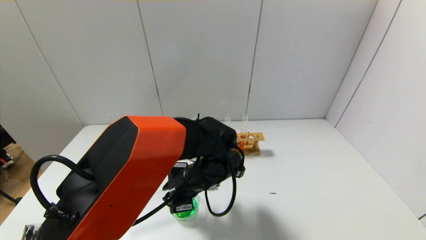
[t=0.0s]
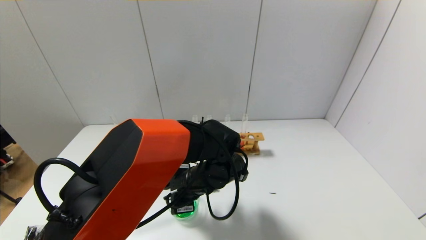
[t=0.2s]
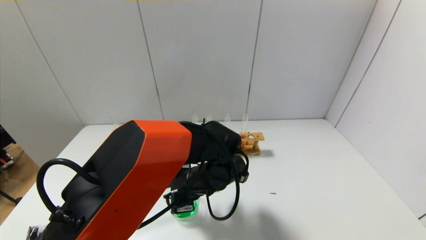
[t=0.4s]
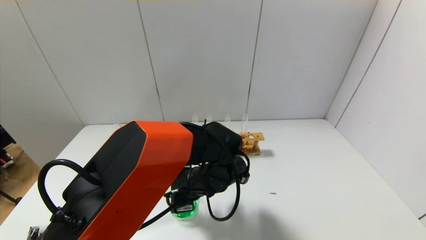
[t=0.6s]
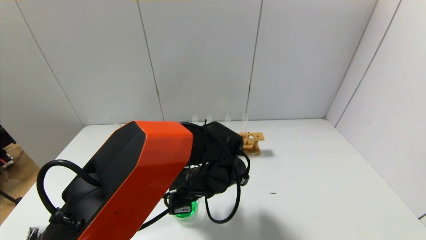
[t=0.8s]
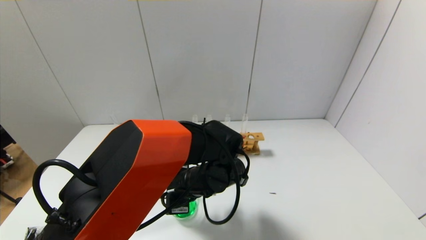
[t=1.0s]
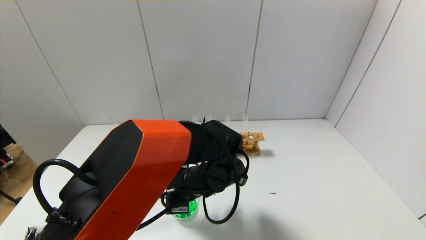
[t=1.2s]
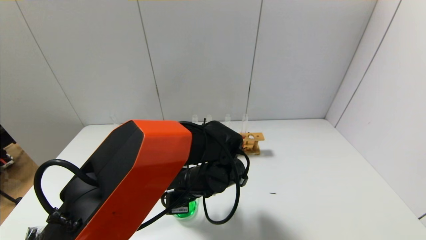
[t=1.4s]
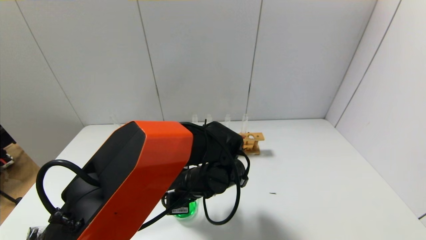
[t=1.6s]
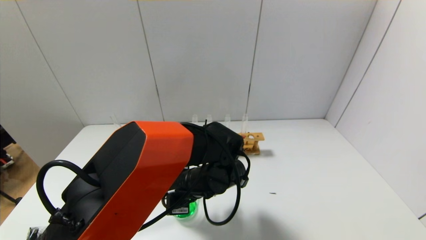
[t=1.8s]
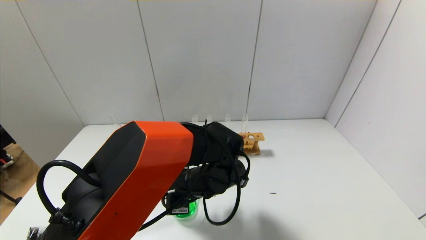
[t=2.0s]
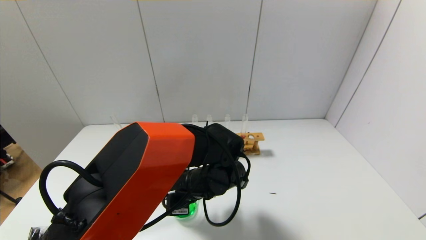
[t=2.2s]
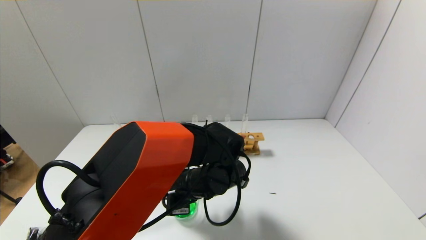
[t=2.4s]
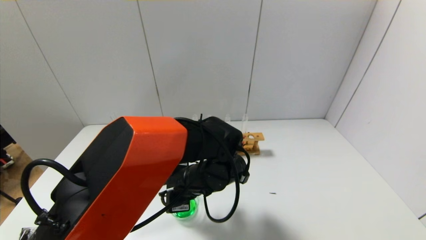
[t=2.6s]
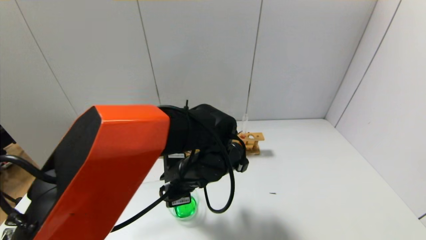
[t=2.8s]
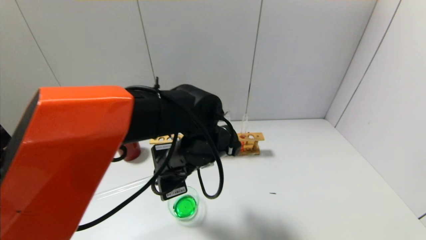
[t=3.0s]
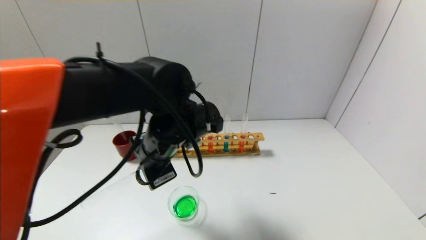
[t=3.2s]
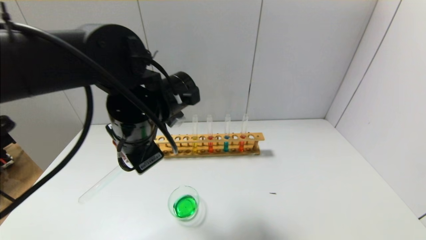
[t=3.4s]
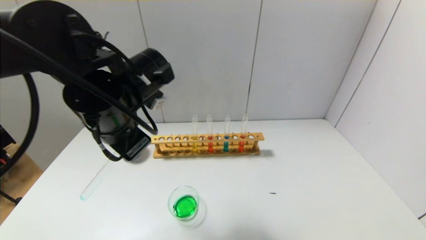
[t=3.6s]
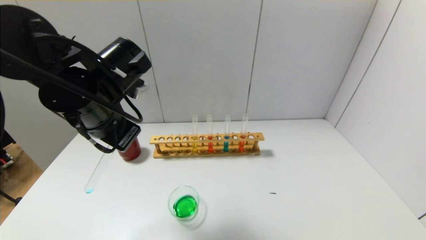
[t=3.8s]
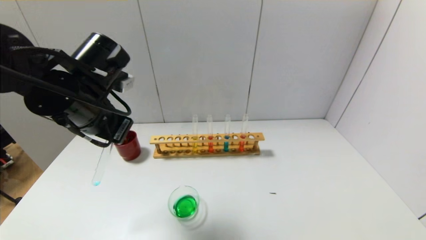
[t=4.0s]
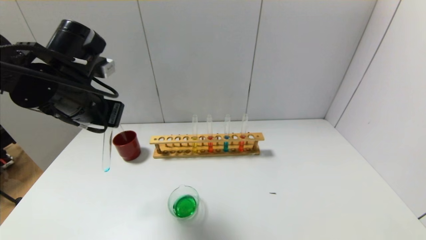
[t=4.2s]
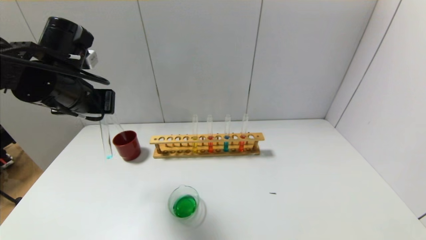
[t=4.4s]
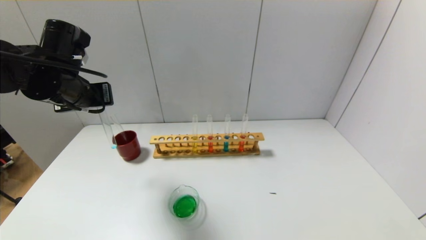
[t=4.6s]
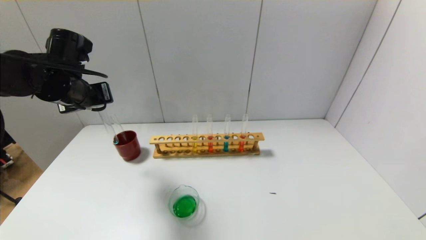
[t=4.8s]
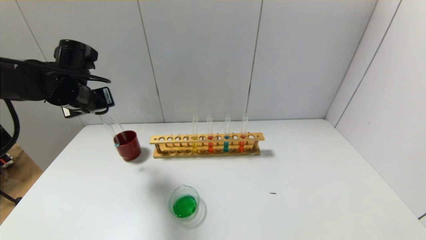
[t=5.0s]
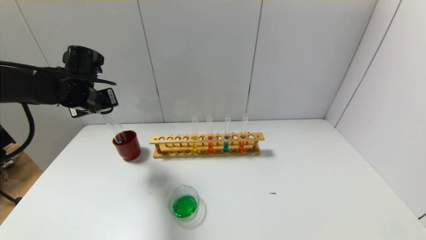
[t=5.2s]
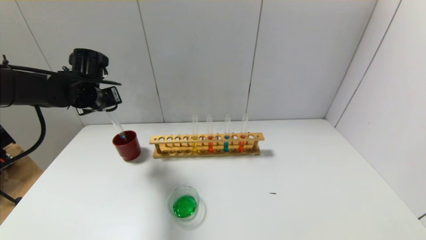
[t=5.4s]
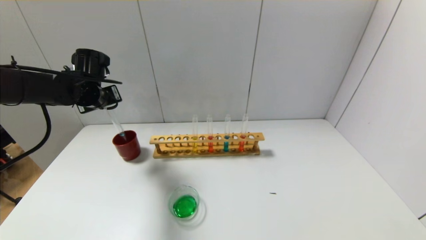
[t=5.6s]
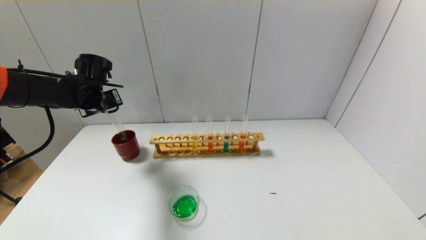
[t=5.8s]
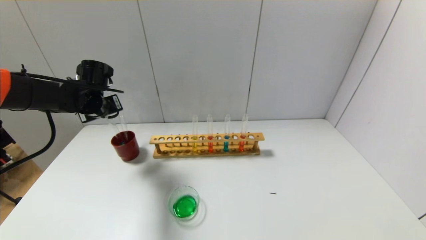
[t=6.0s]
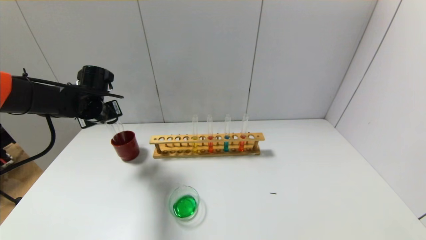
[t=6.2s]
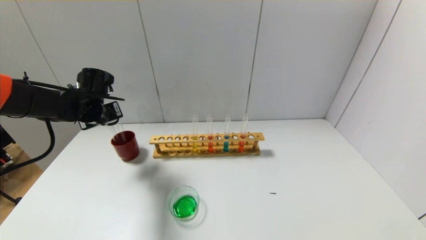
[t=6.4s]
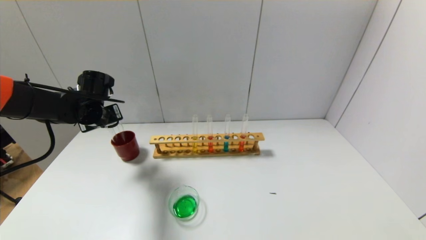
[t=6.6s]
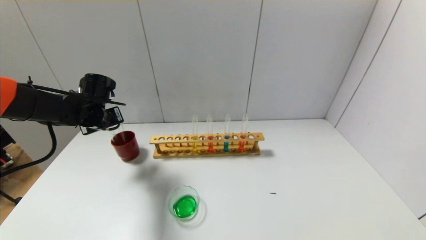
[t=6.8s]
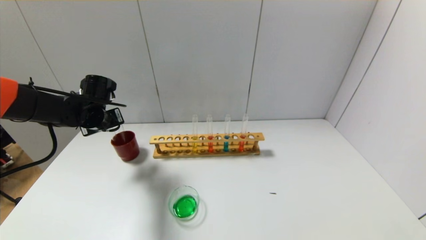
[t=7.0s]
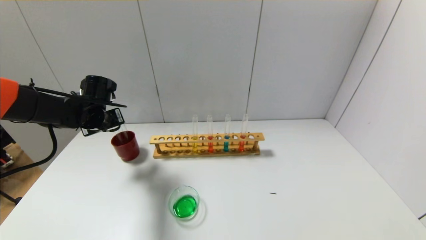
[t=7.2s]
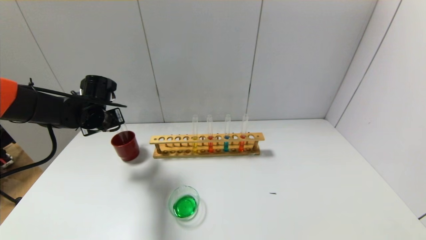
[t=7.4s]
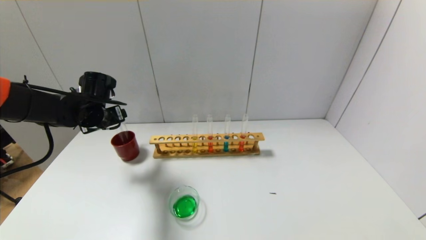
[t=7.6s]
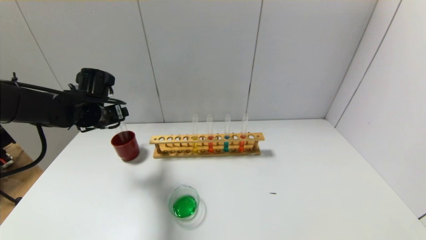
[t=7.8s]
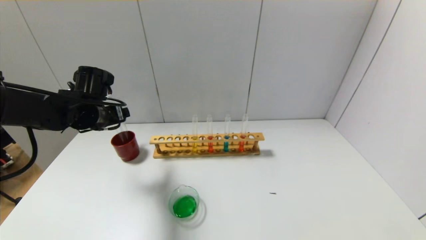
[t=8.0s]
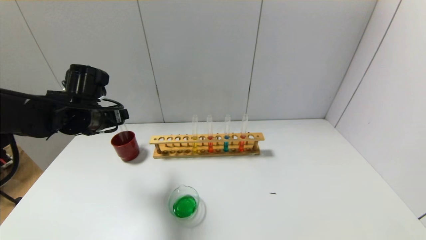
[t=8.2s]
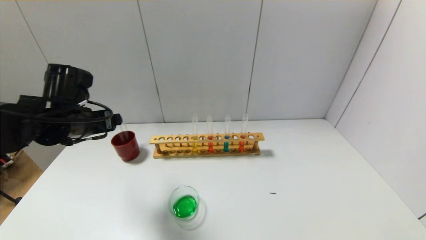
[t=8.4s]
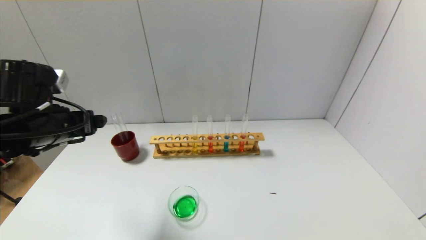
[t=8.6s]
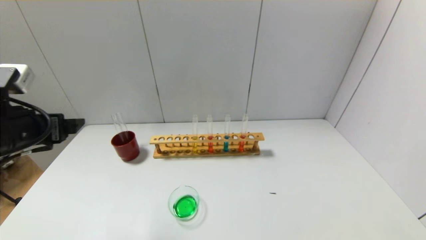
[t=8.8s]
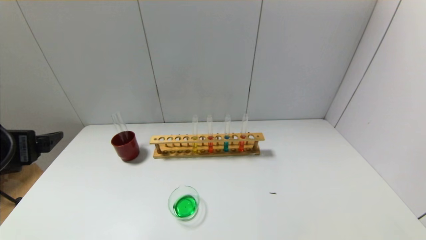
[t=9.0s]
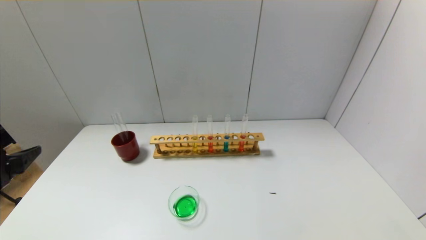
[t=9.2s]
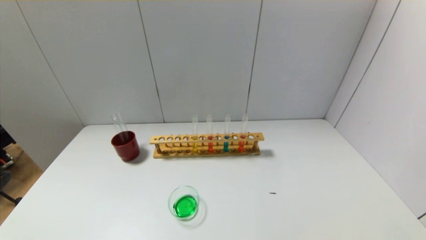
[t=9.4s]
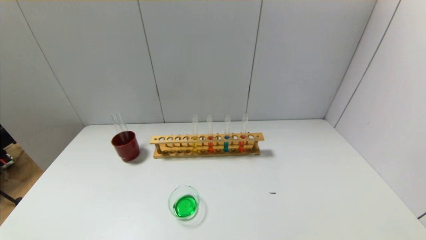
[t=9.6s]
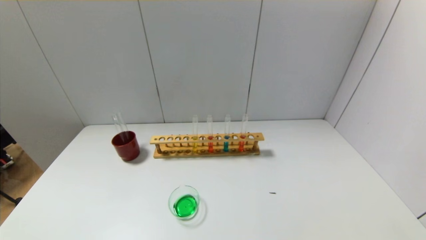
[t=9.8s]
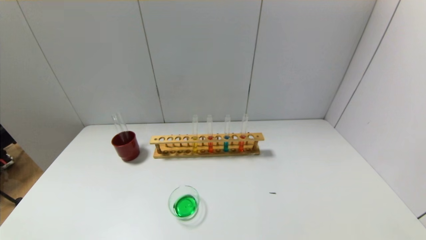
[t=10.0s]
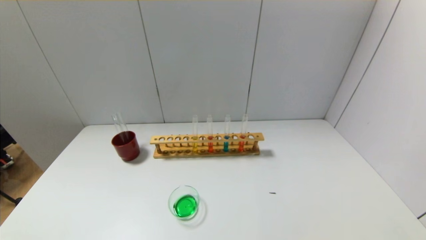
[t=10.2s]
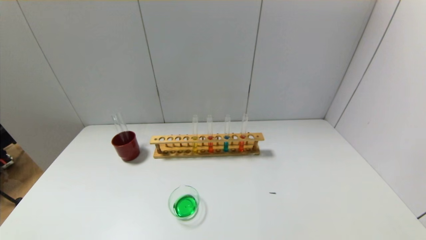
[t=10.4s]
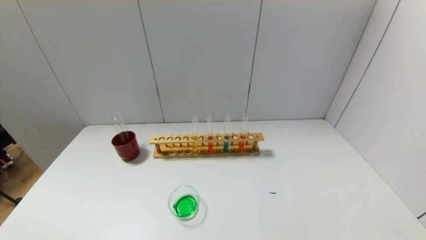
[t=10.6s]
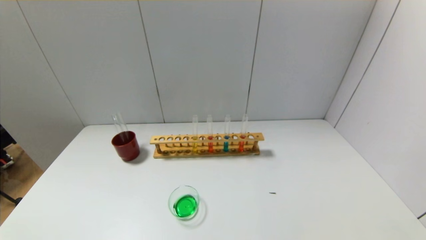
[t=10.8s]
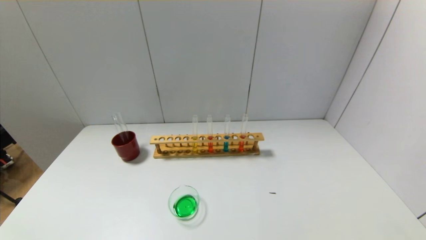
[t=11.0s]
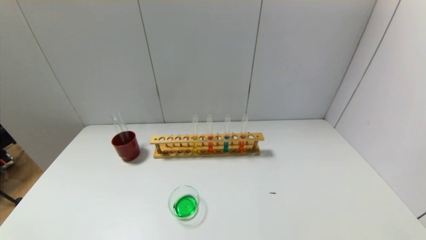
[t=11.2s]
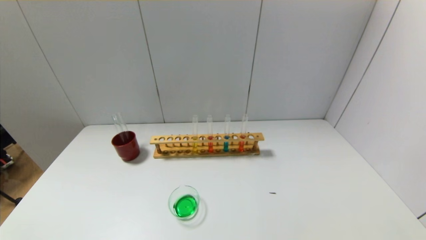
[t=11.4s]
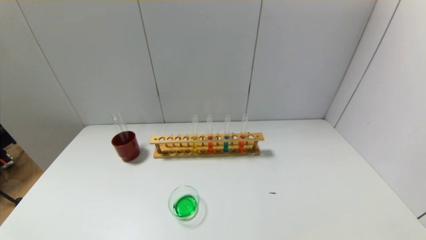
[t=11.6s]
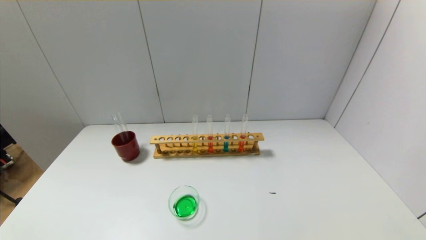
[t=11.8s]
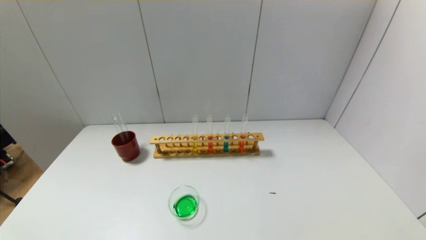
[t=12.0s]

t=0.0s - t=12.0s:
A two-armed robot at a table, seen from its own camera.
Step, t=0.0s - t=3.0s: Pour the blue reagent into the graduated cylinder with the left gripper.
Step, t=3.2s - t=7.2s: Place the test tube into the brown cup with the left gripper.
t=0.0s - t=1.6s: The grippers make only small movements.
t=1.6s - t=3.0s: The left gripper heads upward, covering approximately 10 cm.
t=3.0s - t=4.4s: The left gripper shifts some 20 cm to the left and upward.
t=4.4s - t=6.0s: The left gripper shifts some 15 cm forward and downward.
t=6.0s - t=7.6s: The left gripper opens.
t=7.6s - t=9.0s: The left gripper is displaced backward by approximately 25 cm.
t=9.0s - t=10.4s: The left gripper travels backward and downward by roughly 25 cm.

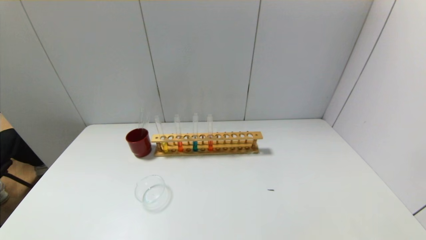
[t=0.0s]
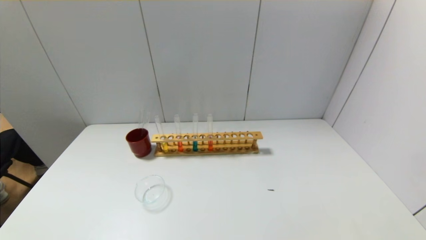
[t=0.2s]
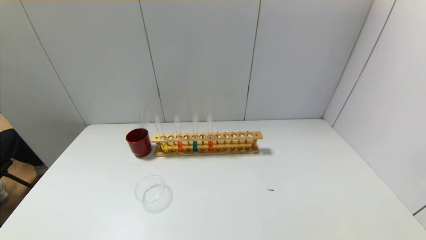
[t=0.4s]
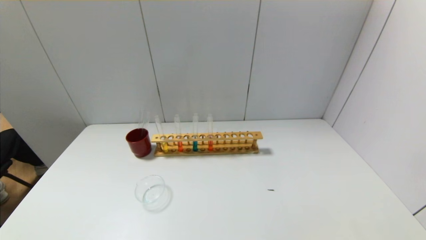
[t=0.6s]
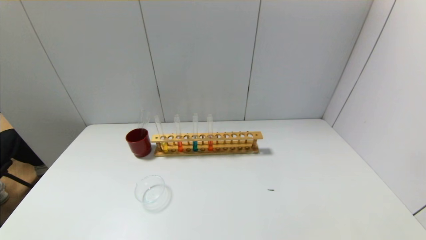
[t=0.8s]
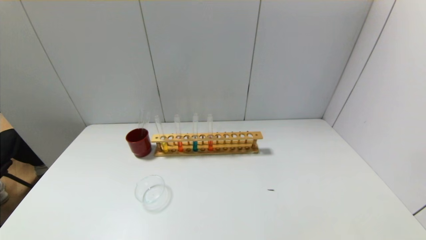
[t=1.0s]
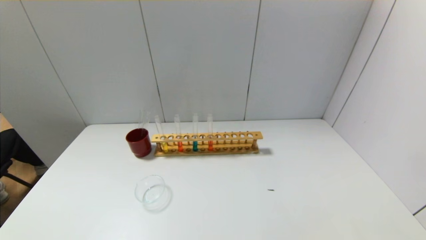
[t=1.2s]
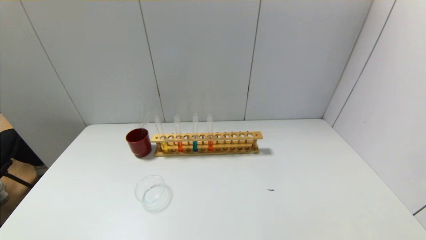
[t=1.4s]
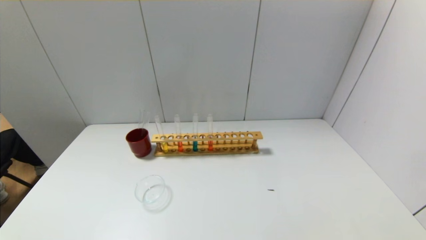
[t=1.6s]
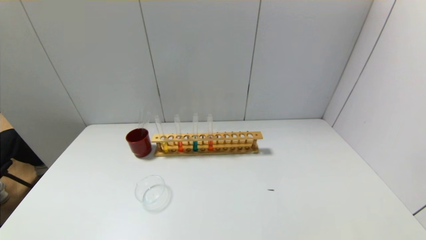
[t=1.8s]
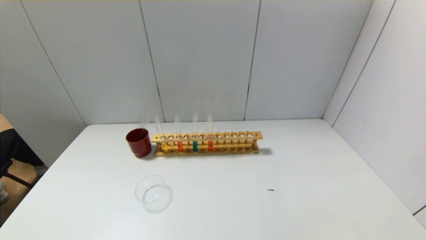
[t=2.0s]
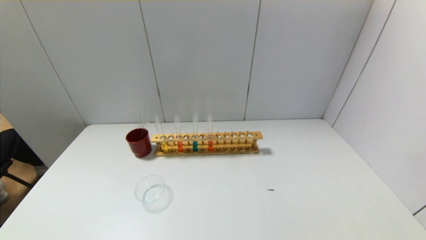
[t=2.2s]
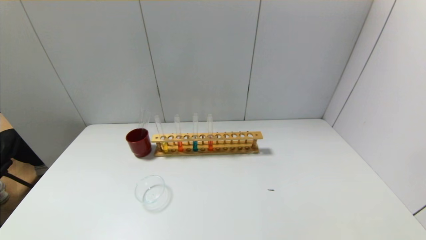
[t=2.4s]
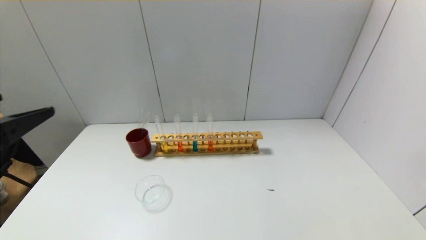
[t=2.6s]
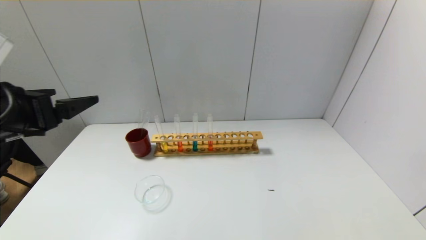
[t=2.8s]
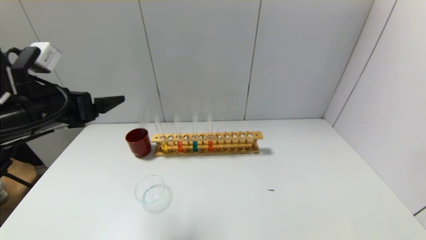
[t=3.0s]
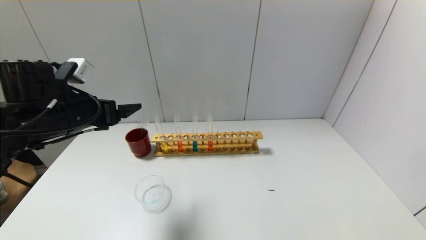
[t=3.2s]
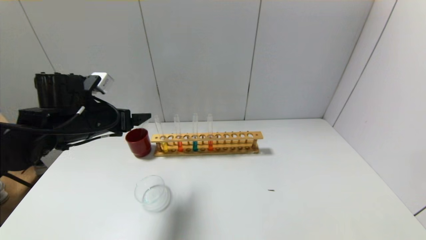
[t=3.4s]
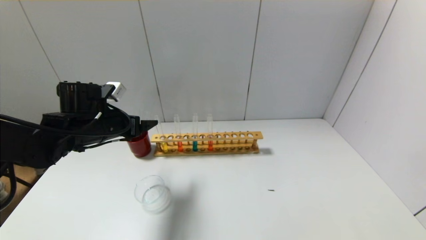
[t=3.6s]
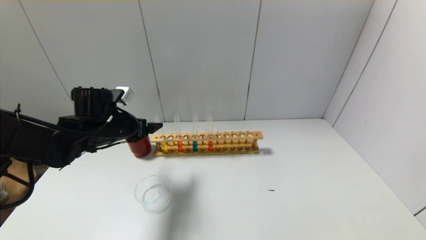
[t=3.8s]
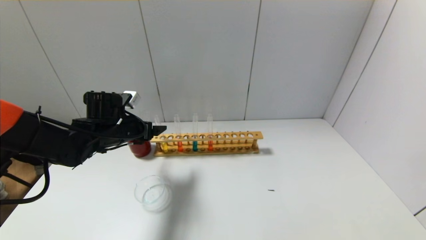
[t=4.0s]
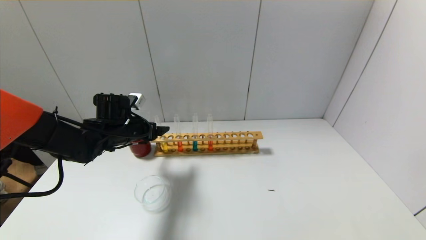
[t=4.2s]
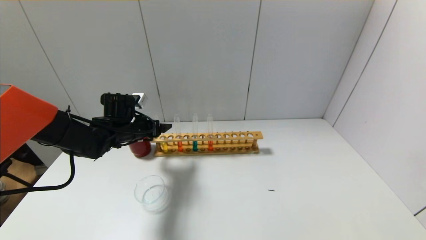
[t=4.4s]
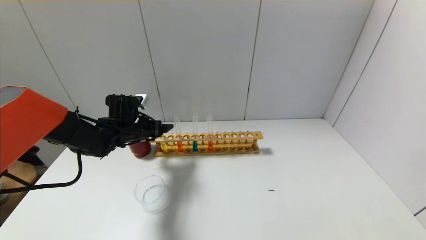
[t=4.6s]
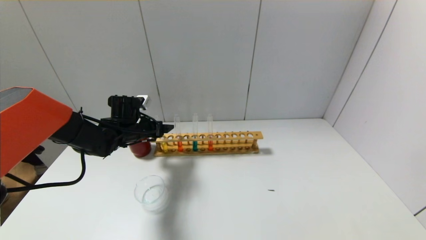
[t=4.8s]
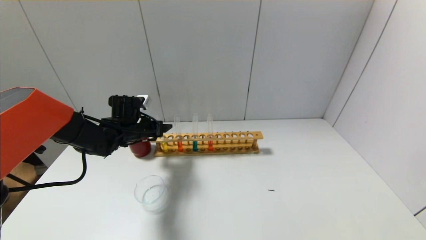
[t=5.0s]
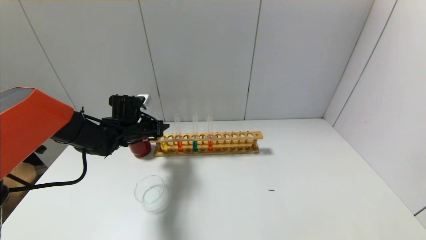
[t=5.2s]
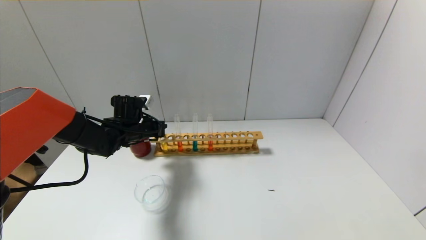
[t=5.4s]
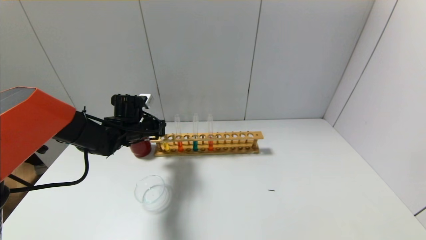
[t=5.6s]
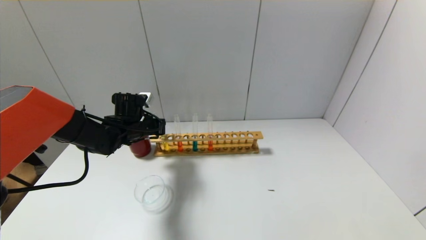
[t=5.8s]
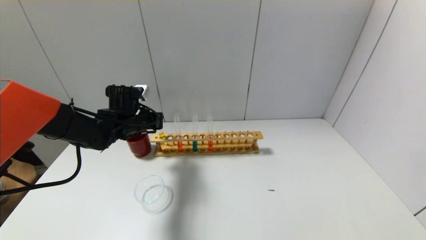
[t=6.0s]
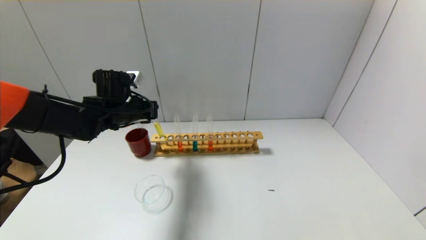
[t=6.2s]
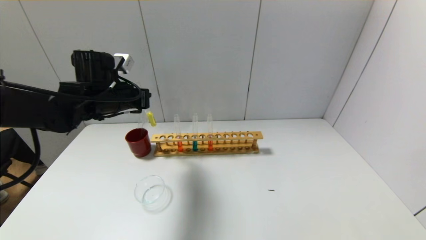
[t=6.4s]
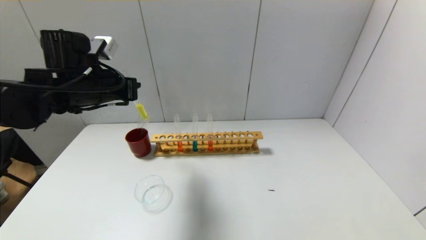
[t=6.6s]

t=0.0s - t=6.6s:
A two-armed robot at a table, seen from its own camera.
Step, t=0.0s - t=5.4s: Grasp the yellow reagent with the left gripper.
t=1.6s - t=3.2s: The left gripper goes about 30 cm forward.
t=3.2s - t=5.0s: The left gripper heads forward and downward, covering roughly 15 cm.
t=5.0s - t=6.6s: The left gripper is displaced upward and backward by roughly 15 cm, and closes its fingers.
